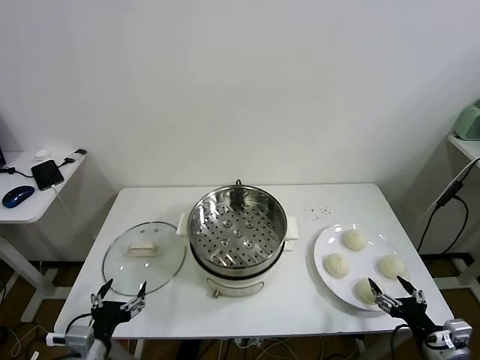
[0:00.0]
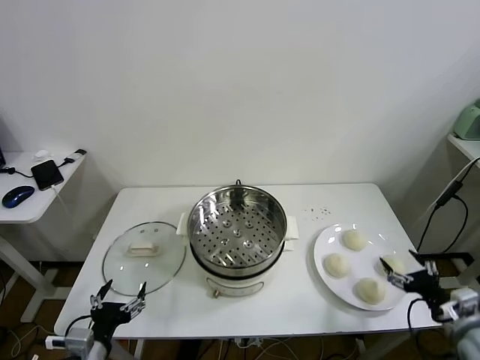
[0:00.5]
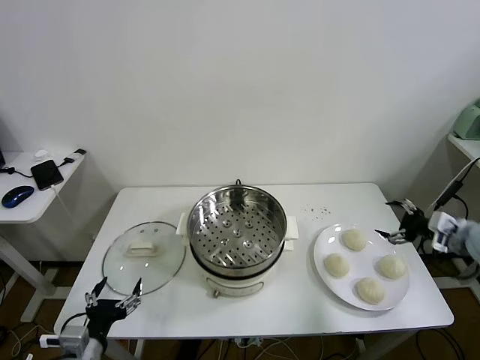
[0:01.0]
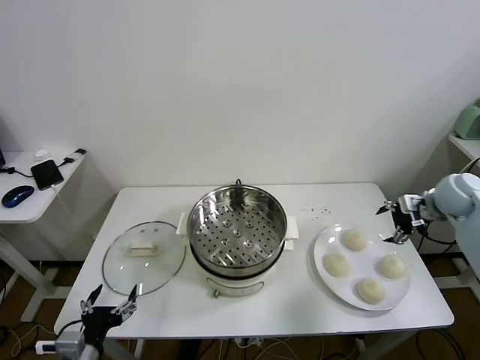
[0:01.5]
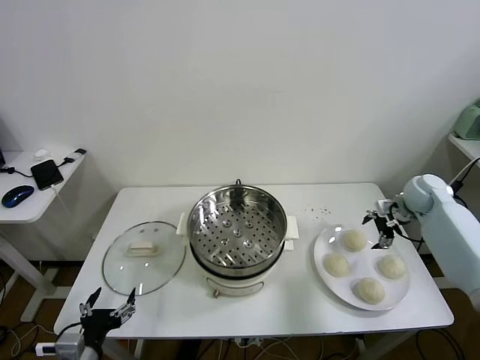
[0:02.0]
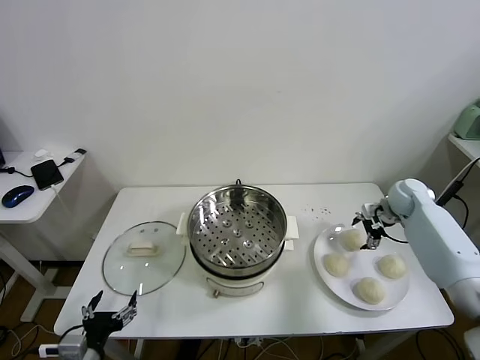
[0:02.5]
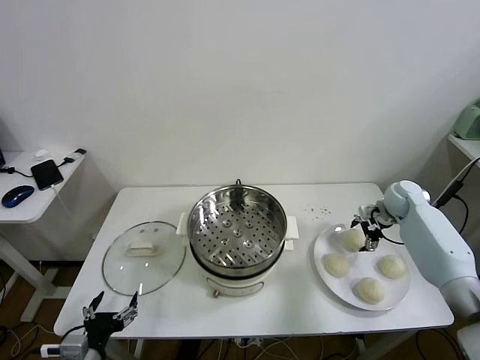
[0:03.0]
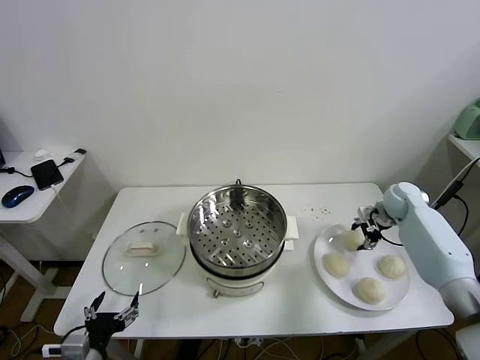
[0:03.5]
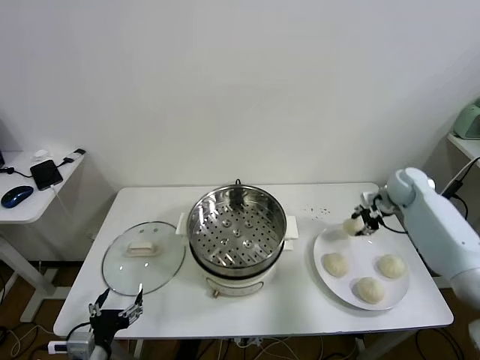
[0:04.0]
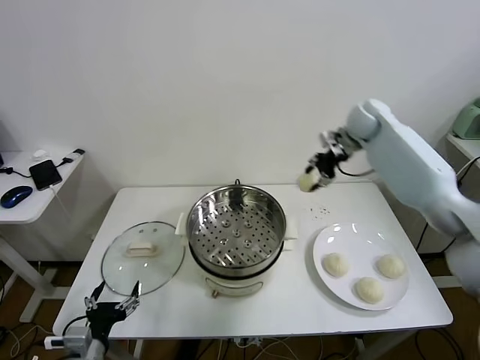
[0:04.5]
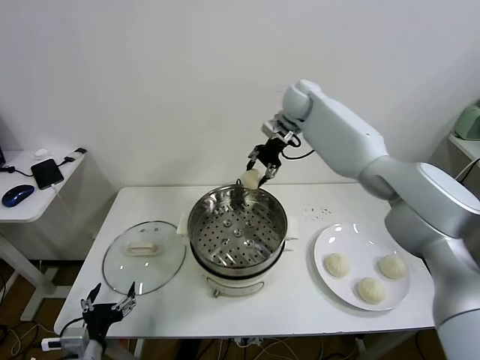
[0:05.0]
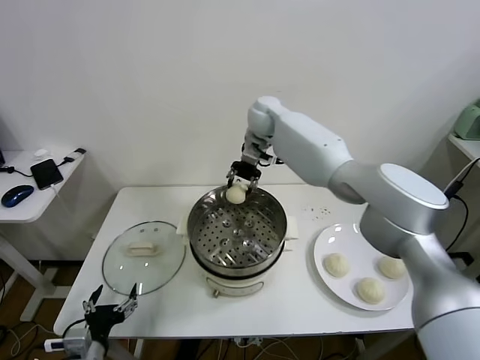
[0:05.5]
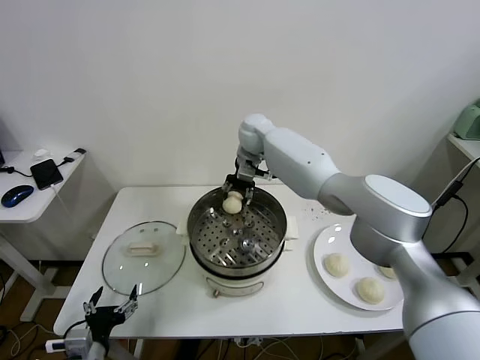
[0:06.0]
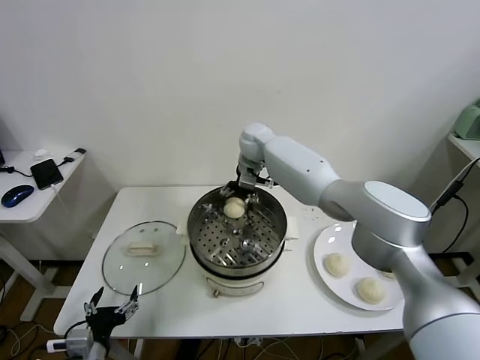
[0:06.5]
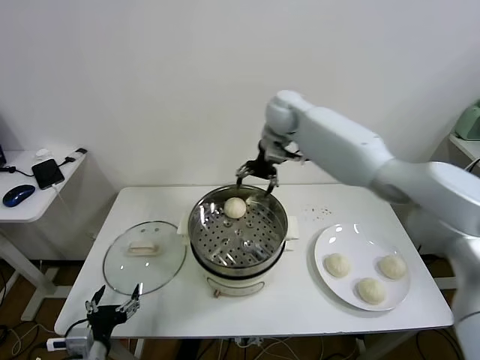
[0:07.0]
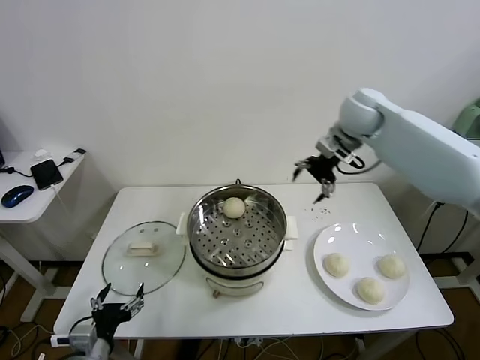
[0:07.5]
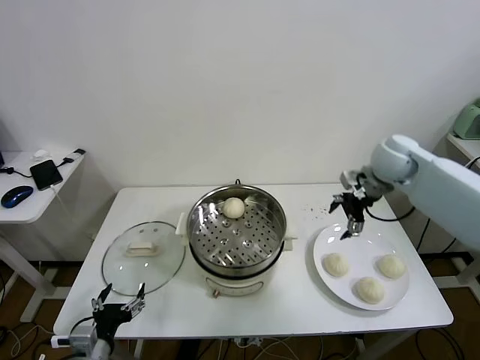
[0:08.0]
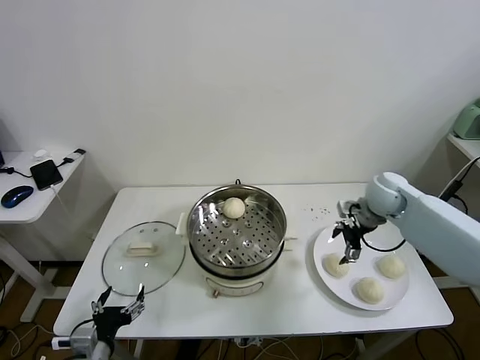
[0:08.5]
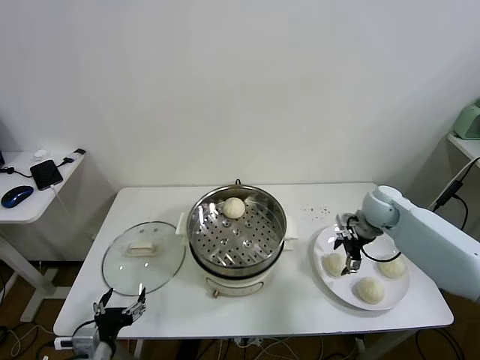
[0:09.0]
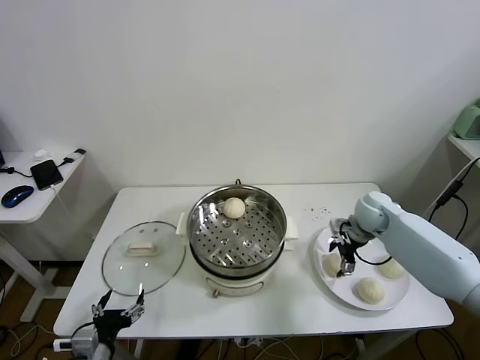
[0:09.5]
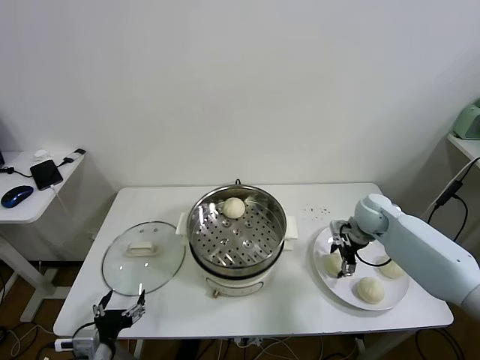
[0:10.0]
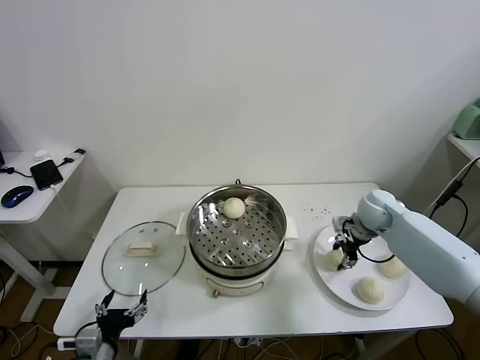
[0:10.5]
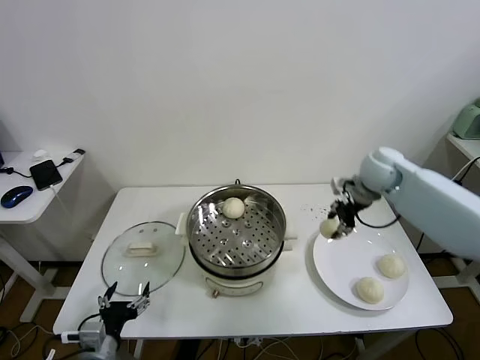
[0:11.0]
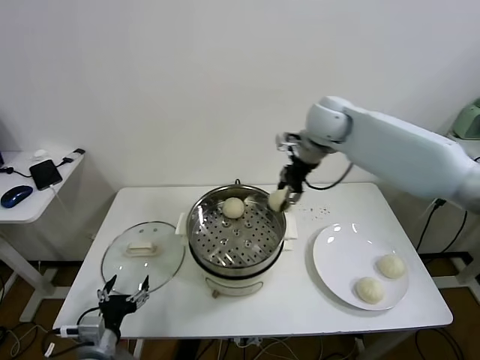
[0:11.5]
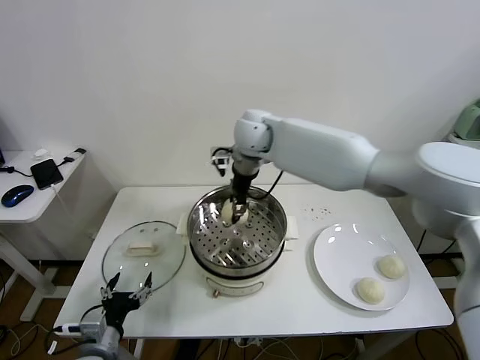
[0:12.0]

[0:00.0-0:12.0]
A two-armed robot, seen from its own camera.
Task of the whole recording: take steamed baozi put them in steamer.
Step, 0.0 to 3.0 s: Grasp the baozi in the plate with right gripper.
Step, 3.5 to 6.5 s: Place the baozi on the steamer with right gripper.
Step, 7.0 to 10.0 s: Grasp the baozi in the plate with right gripper.
2.0 to 4.0 s: The right gripper moves roughly 5 cm, and closes.
4.0 to 6.0 s: The right gripper goes about 40 cm to the left.
6.0 to 8.0 s: The right gripper goes roughly 35 cm to the right and backward, and opens its fingers.
8.0 to 10.0 s: The right gripper goes approximately 15 cm downward.
10.0 to 12.0 s: The right gripper moves to the left and upward, roughly 40 cm, and closes its fingers.

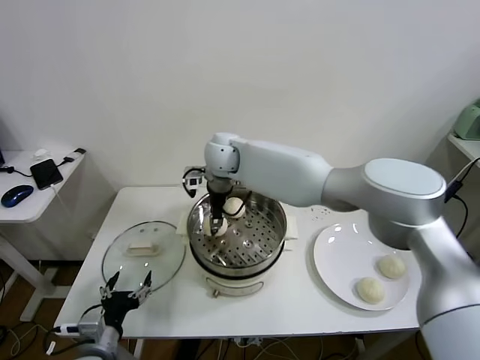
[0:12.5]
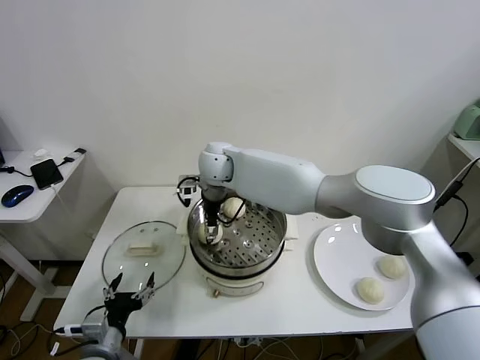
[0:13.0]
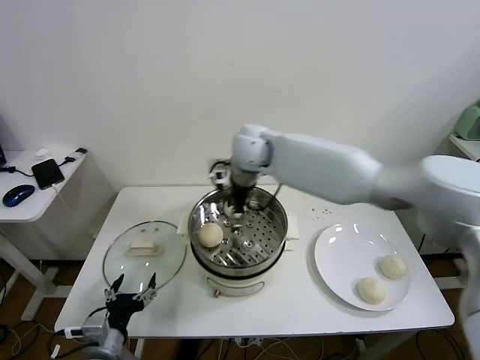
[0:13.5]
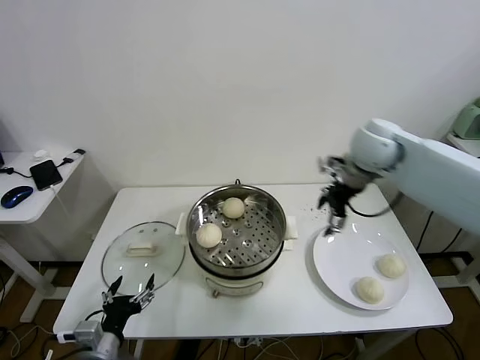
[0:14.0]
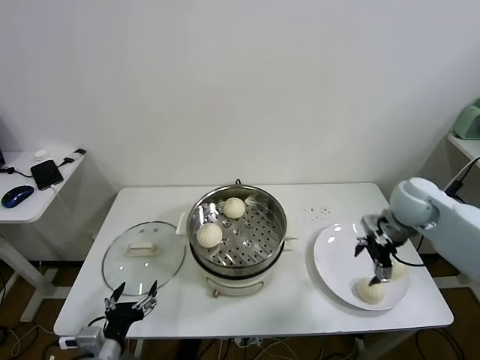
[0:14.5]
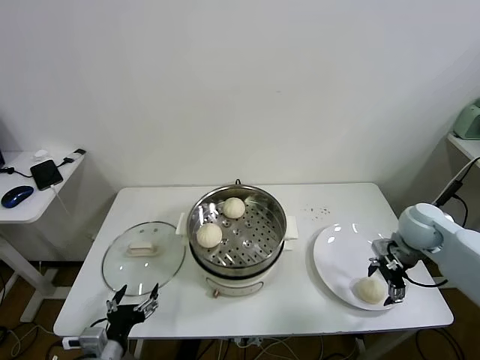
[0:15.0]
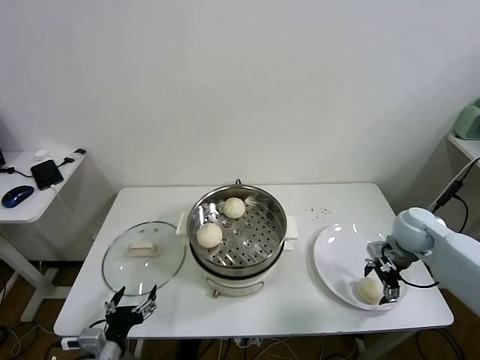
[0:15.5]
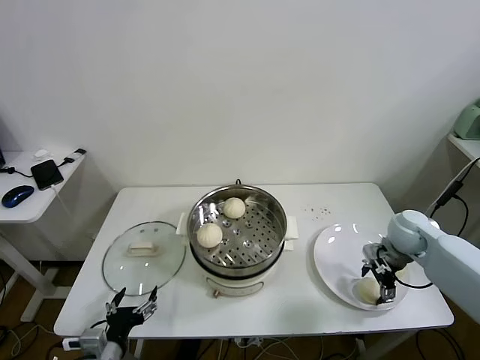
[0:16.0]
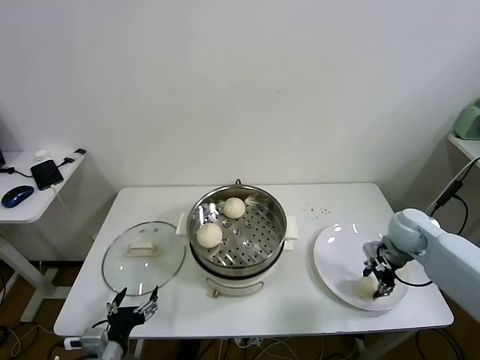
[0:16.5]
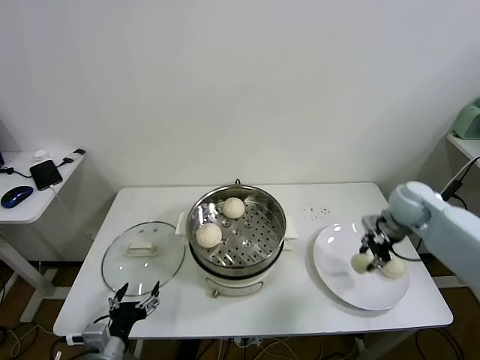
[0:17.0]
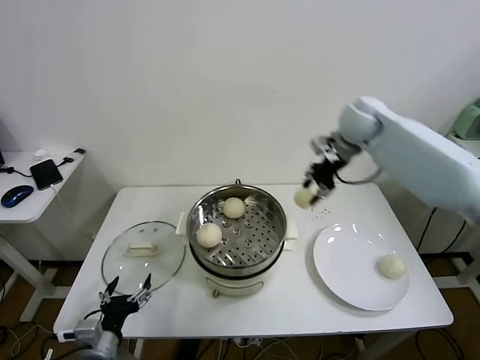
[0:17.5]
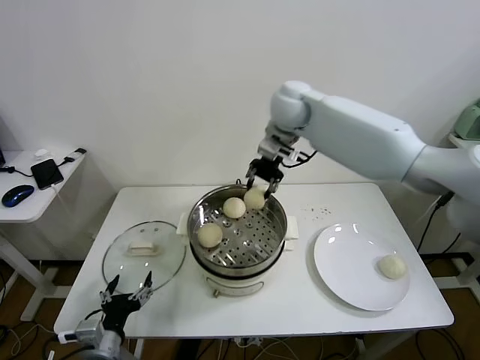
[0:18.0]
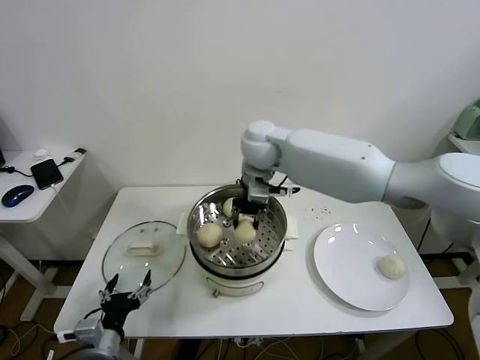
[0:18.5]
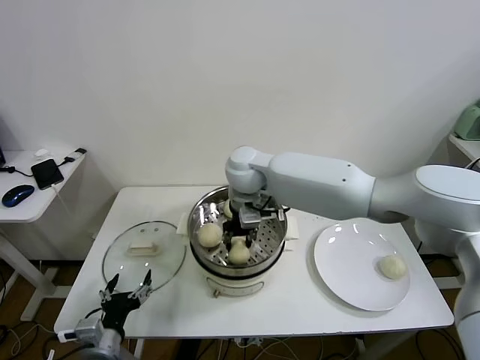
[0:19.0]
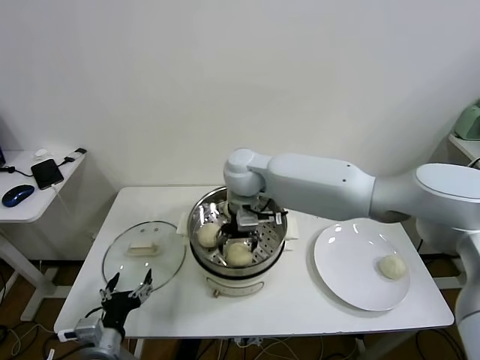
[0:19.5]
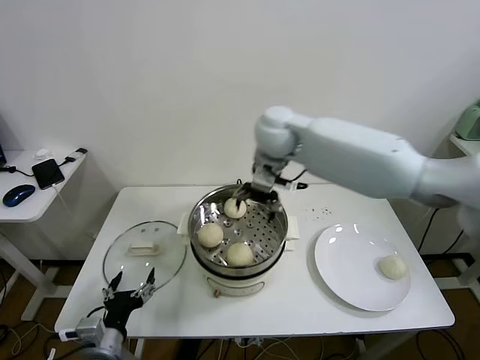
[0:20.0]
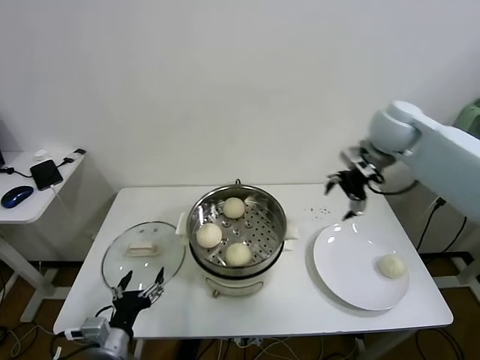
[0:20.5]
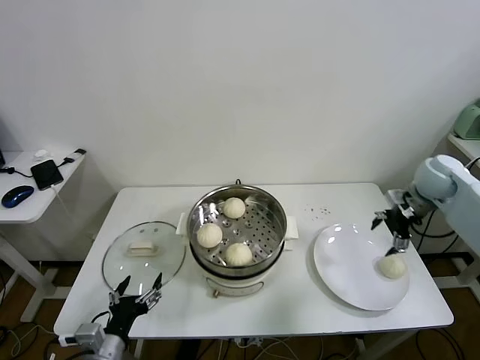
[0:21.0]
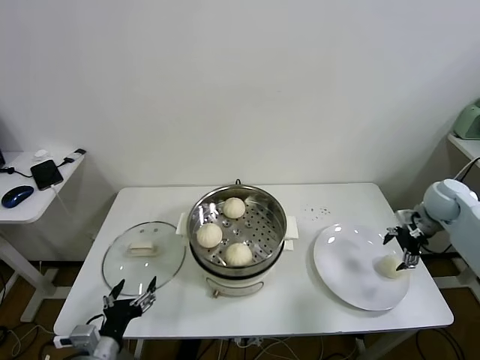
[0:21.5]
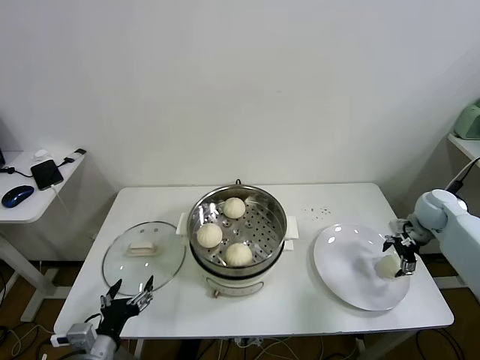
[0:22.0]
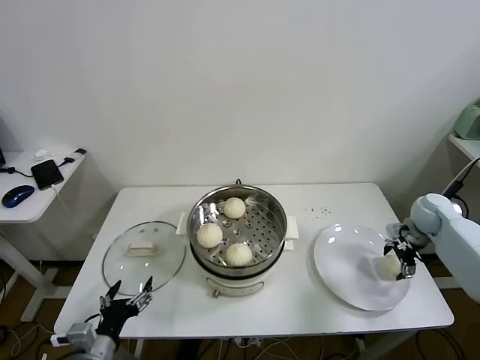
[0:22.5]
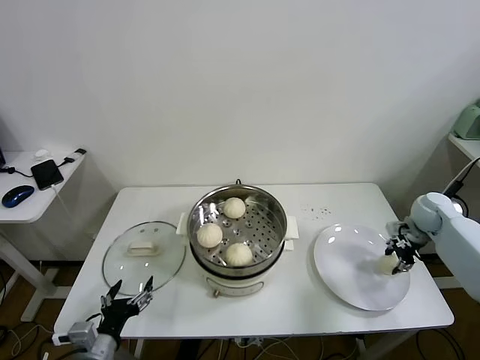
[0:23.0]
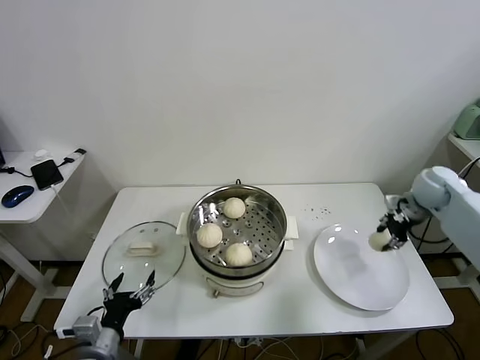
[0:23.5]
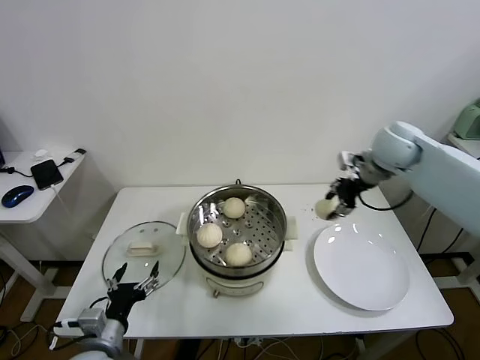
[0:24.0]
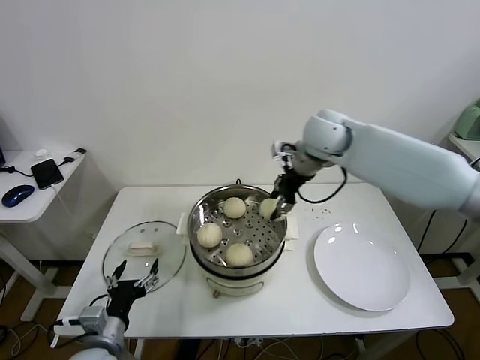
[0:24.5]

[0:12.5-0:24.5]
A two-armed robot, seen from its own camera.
Task of the whole recording: take steamed baozi put them in steamer.
Step, 13.5 to 16.5 s: Grasp the baozi in the plate with right gripper.
Step, 17.0 to 19.5 s: Place the baozi on the steamer with right gripper.
Step, 20.0 to 23.0 s: Grasp the baozi in the plate with right gripper.
12.5 to 14.5 s: The right gripper heads to the right, covering about 40 cm, and opens up.
14.5 to 16.5 s: The right gripper shifts about 10 cm downward, and closes its fingers.
16.5 to 18.5 s: The right gripper heads to the left and upward, covering some 40 cm.
18.5 to 20.5 s: The right gripper travels to the right by some 30 cm, and opens its fingers.
20.5 to 22.5 s: The right gripper heads downward and to the right, covering roughly 30 cm.
22.5 to 24.5 s: The right gripper moves to the left and upward, approximately 40 cm, and closes up.

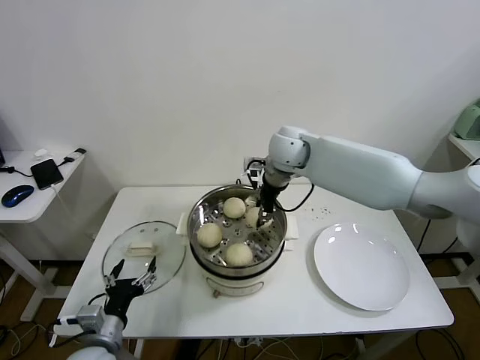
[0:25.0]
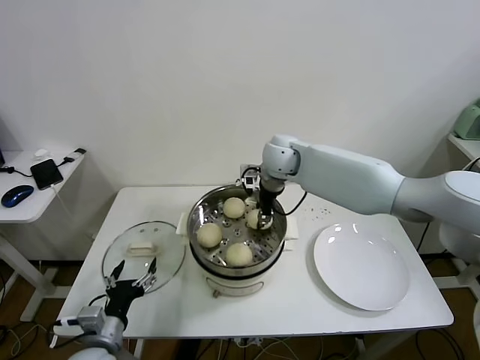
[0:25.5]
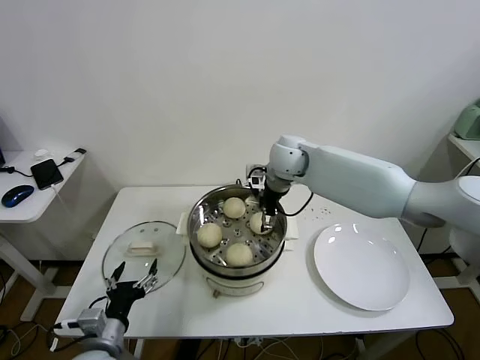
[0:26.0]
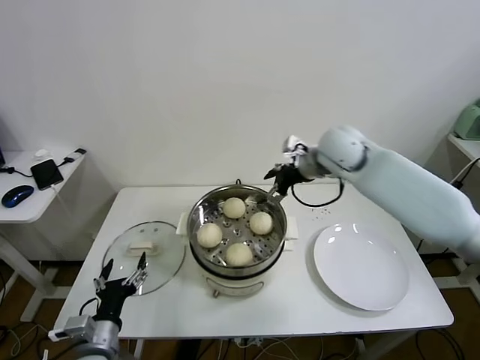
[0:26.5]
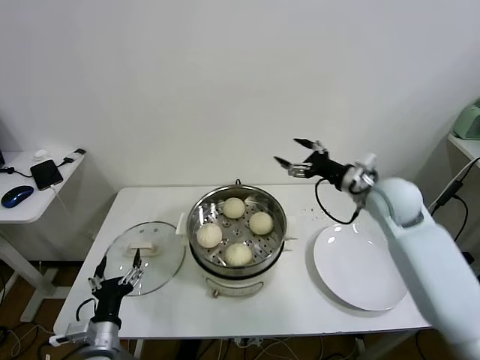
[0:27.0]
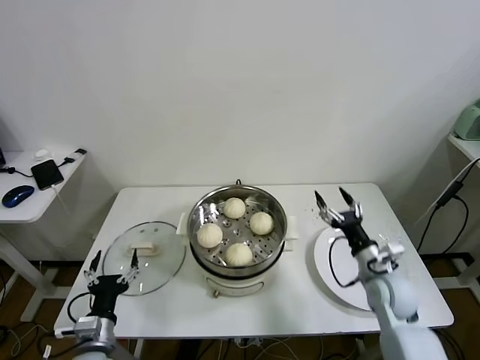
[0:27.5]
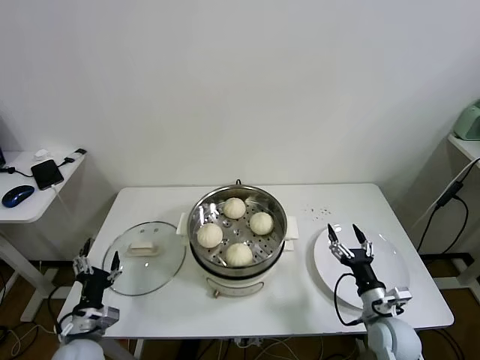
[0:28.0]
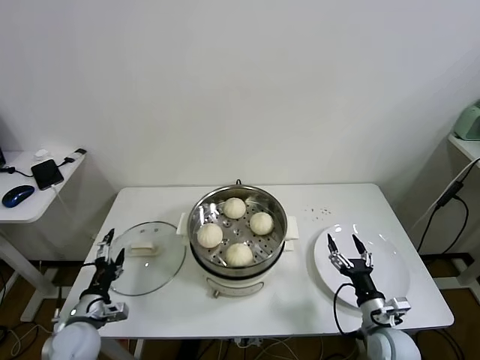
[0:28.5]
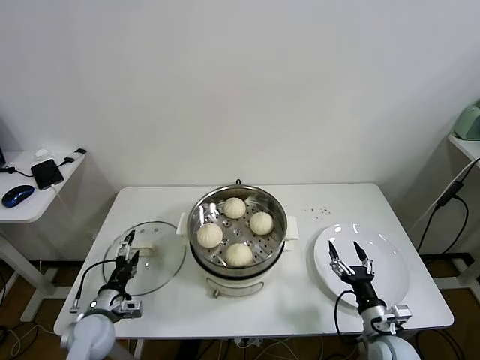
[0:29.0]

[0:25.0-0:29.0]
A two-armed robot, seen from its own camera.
Task of the whole recording: take steamed baozi put them in steamer.
25.0 to 27.0 s: The right gripper heads to the right and backward, covering approximately 25 cm, and opens its fingers.
27.0 to 29.0 s: The left gripper moves forward, to the left and downward, approximately 15 cm. Meanwhile the right gripper moves downward and backward, approximately 35 cm.
